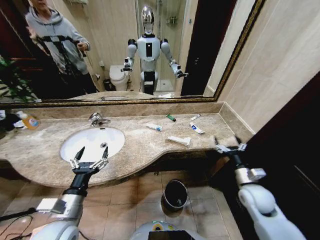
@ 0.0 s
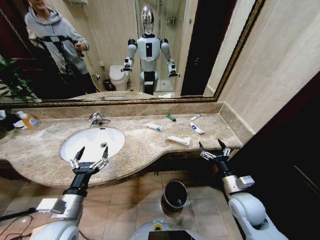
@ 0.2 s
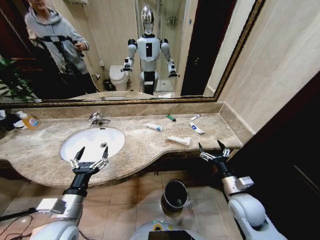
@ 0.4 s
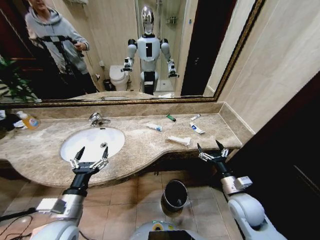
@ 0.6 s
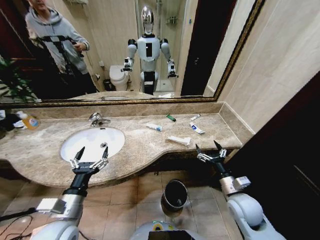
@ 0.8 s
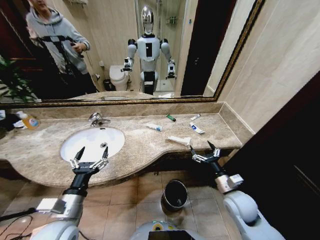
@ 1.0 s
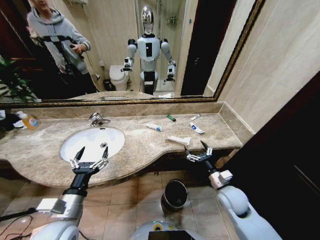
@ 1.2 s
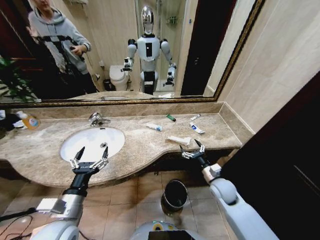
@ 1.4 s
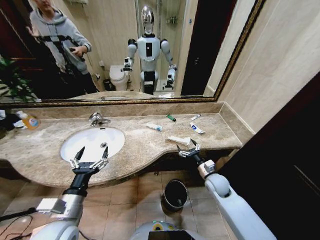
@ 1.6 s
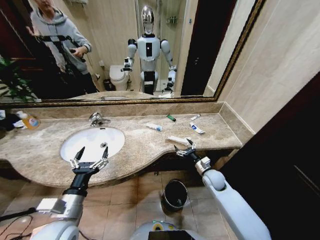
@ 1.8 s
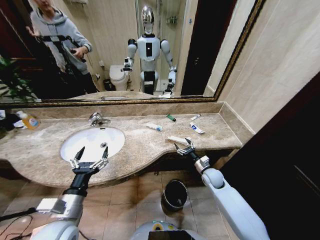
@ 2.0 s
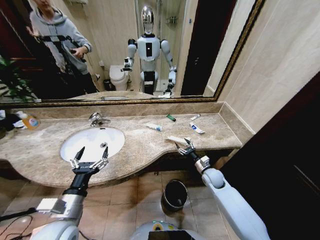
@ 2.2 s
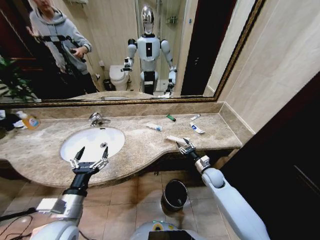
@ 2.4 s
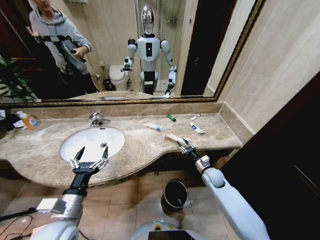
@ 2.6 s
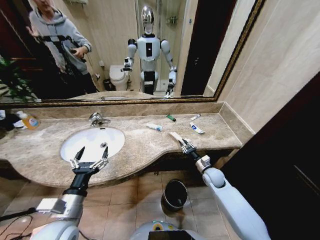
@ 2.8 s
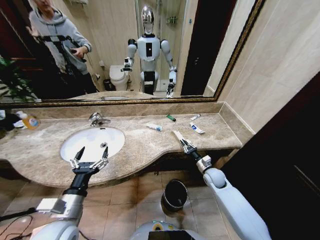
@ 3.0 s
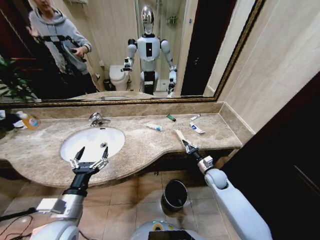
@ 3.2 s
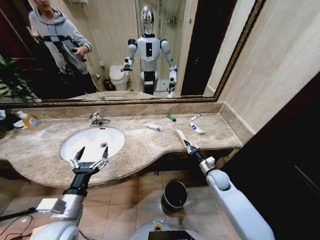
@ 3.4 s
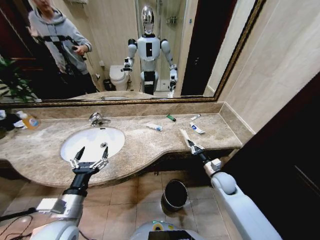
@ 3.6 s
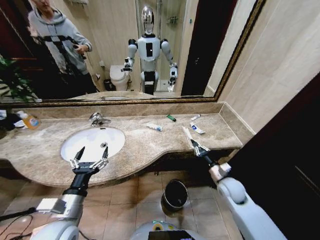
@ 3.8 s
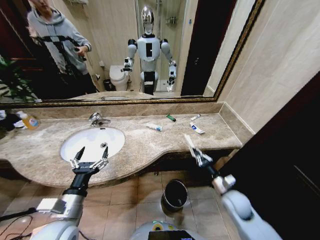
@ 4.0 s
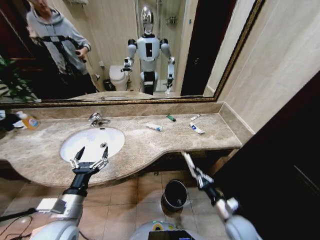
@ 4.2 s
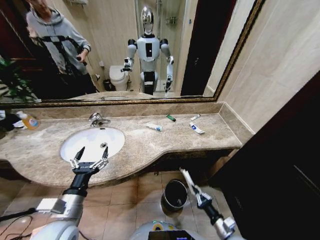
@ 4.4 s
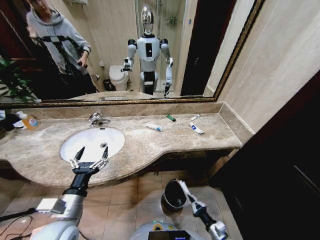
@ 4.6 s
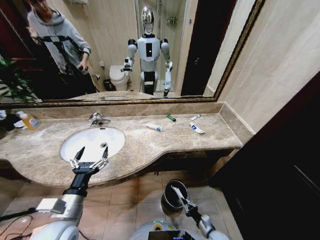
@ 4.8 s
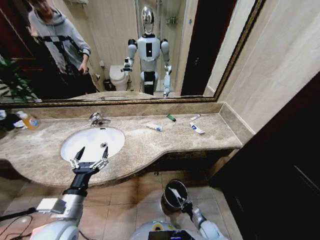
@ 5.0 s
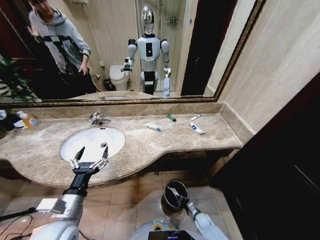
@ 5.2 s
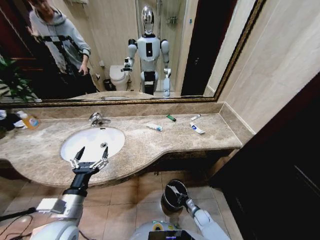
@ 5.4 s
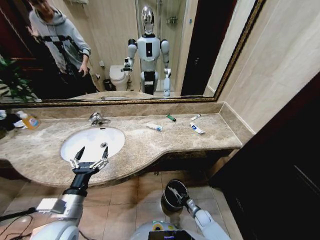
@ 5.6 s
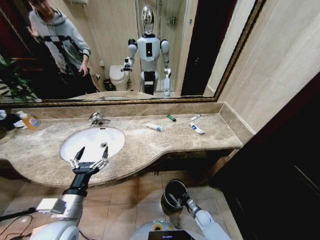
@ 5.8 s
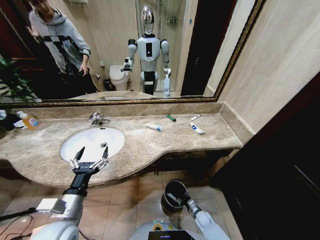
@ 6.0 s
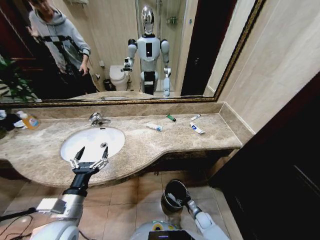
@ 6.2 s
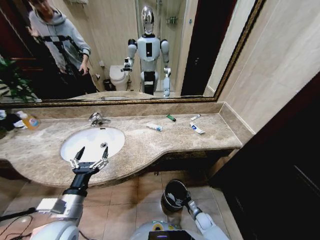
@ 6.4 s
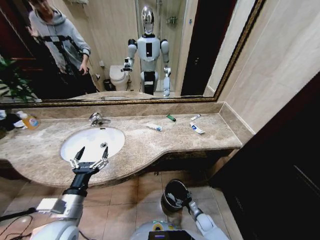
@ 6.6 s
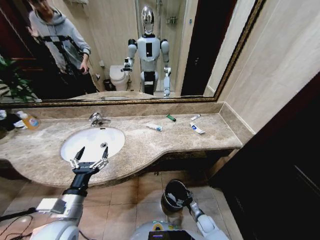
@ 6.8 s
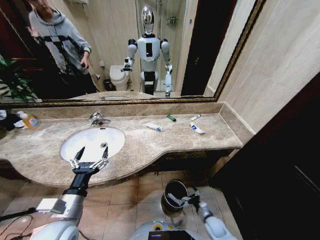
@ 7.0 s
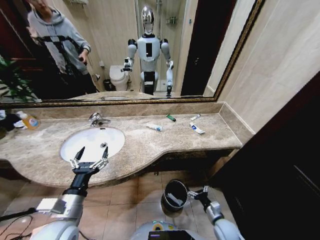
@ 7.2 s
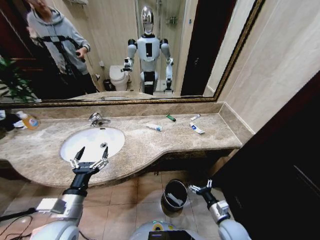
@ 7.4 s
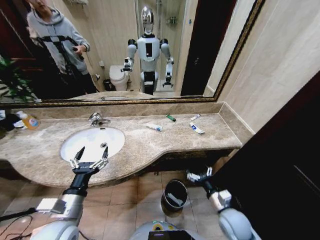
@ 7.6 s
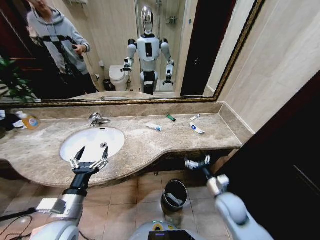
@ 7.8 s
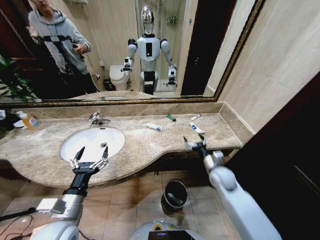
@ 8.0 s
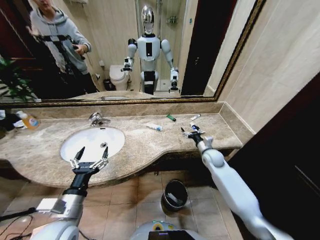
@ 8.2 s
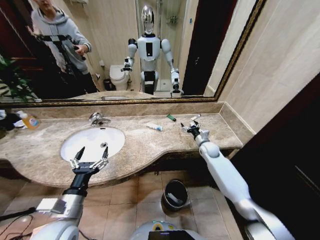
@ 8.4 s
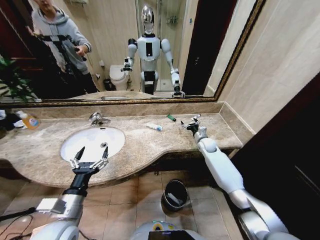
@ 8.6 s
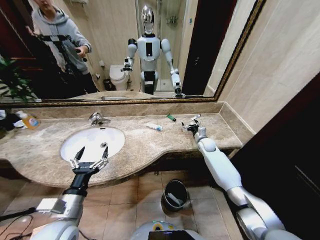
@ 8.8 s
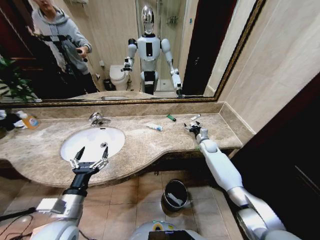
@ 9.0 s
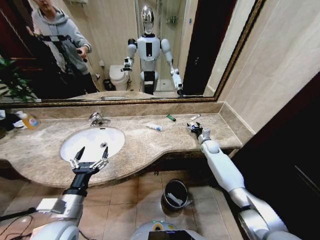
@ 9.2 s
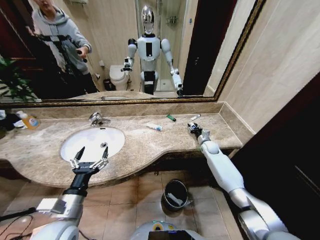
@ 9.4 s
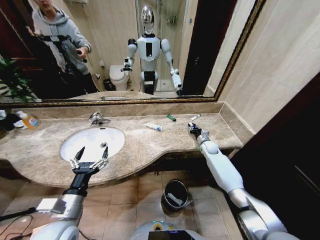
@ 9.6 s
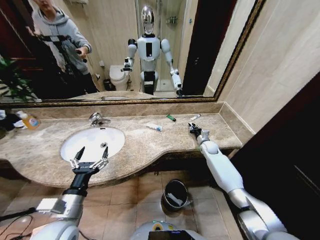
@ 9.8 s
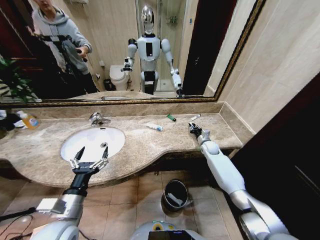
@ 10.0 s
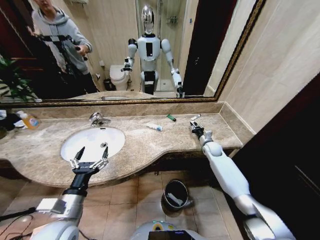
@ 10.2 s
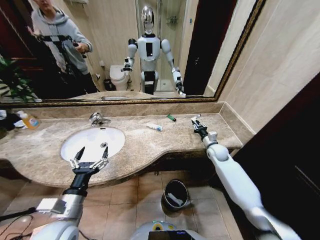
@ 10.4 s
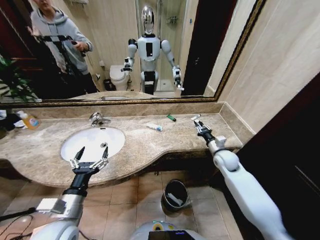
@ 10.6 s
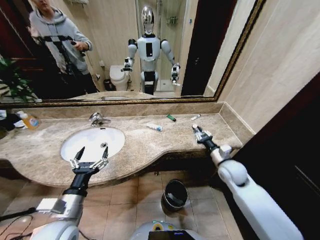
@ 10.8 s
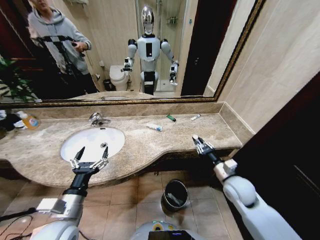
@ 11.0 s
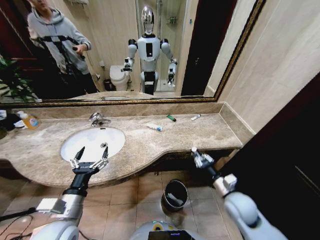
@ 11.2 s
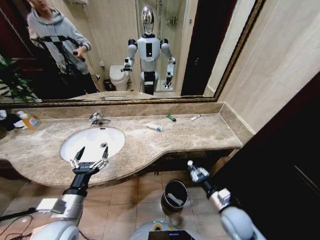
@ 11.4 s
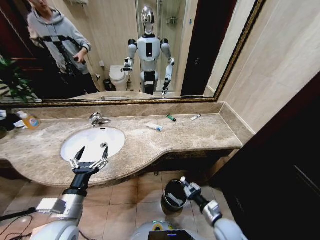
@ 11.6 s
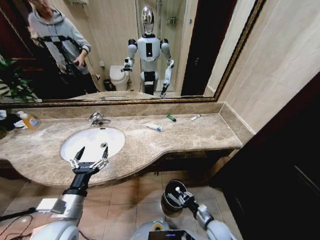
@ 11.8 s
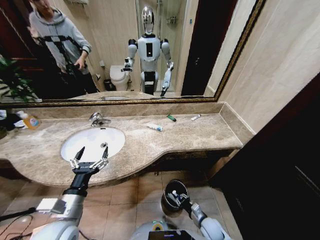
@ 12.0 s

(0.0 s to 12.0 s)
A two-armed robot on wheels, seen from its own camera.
Task of the whole recording: Pick up the trash from the sink and place it in the trash bin.
1.6 s - 3.0 s: The right gripper changes place by approximately 5 cm, and closes up.
3.0 s - 4.4 s: The right gripper shifts roughly 25 cm backward.
4.4 s - 6.0 s: The right gripper moves downward and forward, about 20 cm, and opens its fingers.
6.0 s - 7.6 s: The right gripper travels upward by some 30 cm, and opens.
7.6 s - 9.0 s: The right gripper moves forward, approximately 35 cm.
9.0 s - 10.4 s: The right gripper goes some 10 cm backward, and closes up.
10.4 s - 12.0 s: The right gripper travels backward and downward by approximately 35 cm.

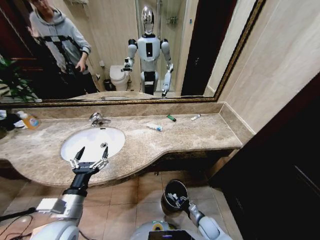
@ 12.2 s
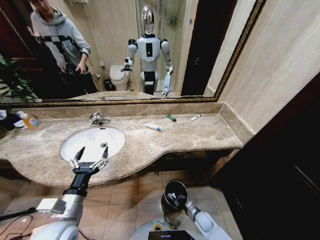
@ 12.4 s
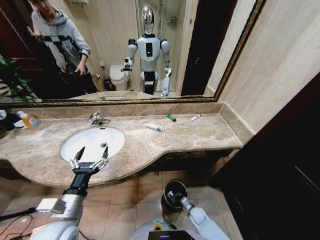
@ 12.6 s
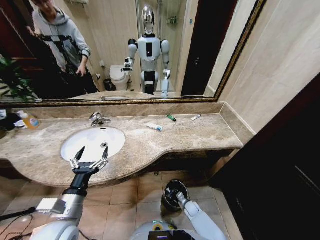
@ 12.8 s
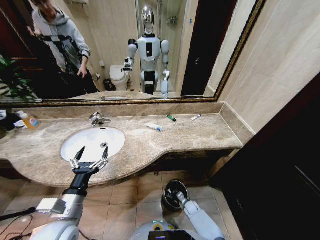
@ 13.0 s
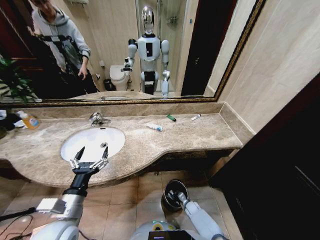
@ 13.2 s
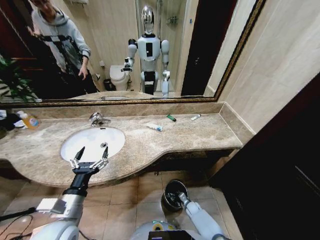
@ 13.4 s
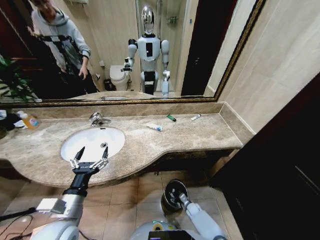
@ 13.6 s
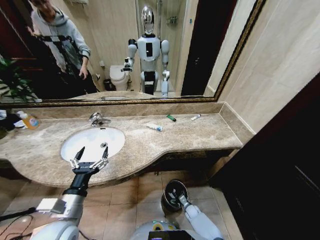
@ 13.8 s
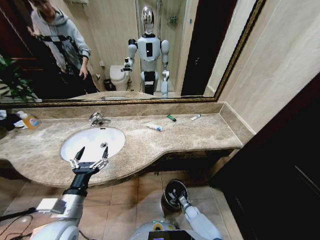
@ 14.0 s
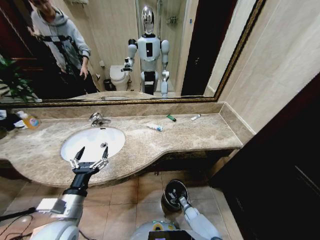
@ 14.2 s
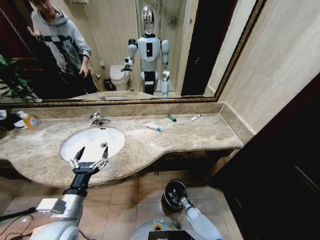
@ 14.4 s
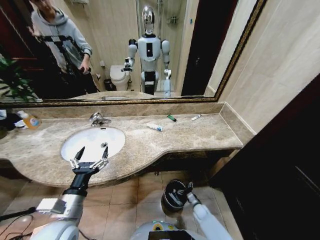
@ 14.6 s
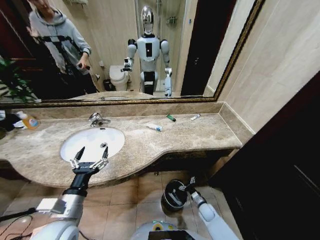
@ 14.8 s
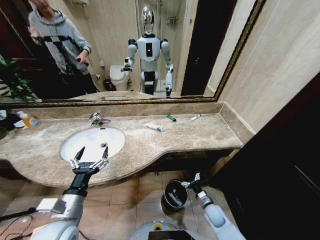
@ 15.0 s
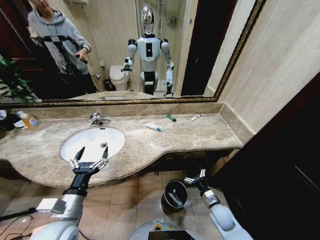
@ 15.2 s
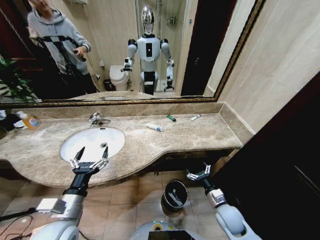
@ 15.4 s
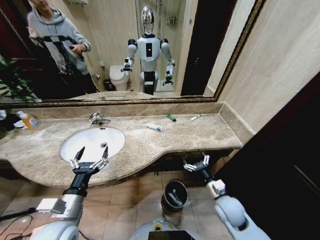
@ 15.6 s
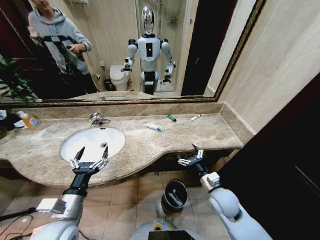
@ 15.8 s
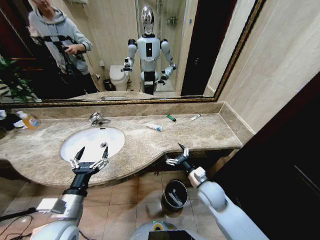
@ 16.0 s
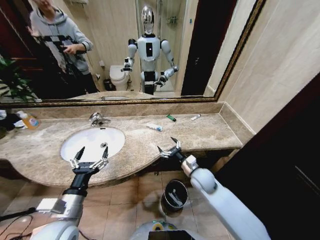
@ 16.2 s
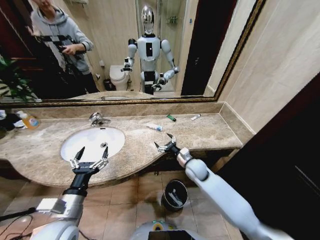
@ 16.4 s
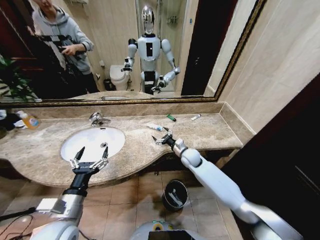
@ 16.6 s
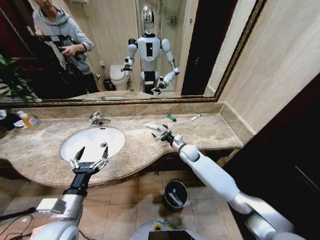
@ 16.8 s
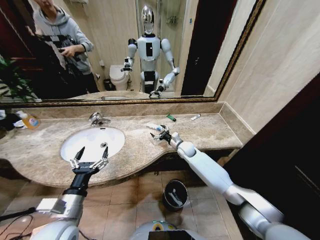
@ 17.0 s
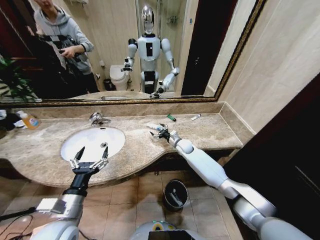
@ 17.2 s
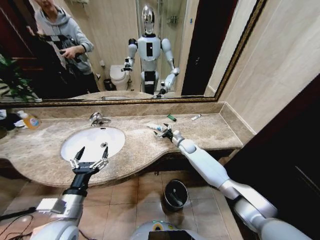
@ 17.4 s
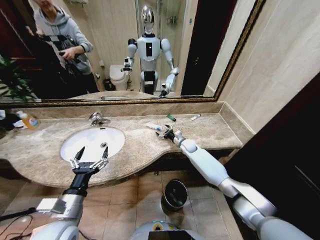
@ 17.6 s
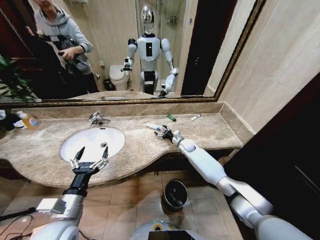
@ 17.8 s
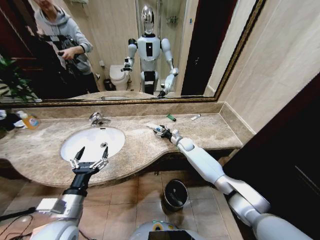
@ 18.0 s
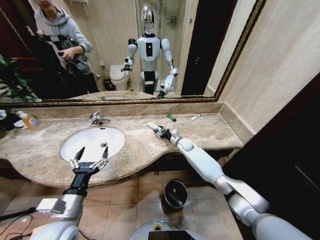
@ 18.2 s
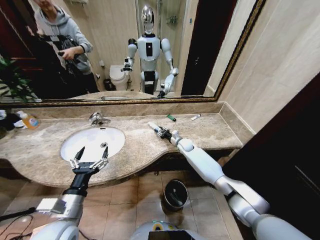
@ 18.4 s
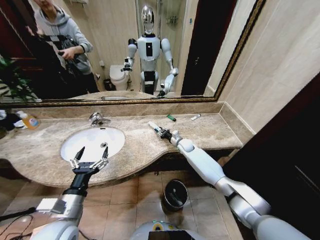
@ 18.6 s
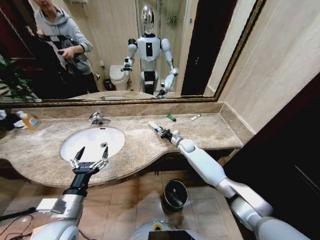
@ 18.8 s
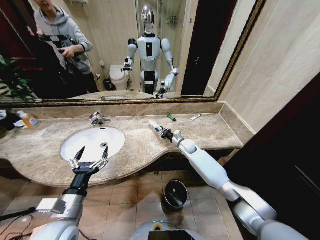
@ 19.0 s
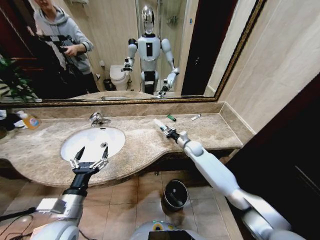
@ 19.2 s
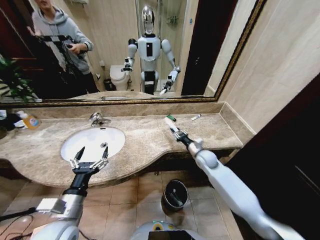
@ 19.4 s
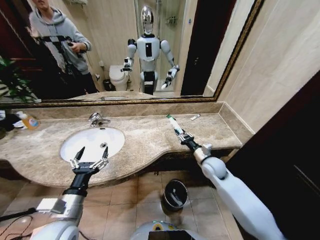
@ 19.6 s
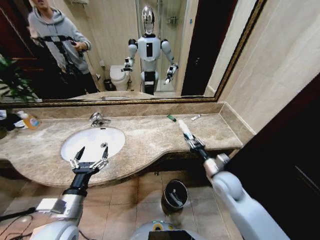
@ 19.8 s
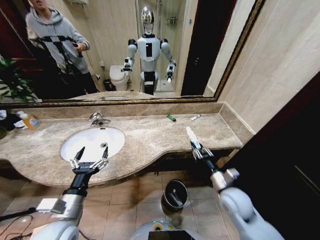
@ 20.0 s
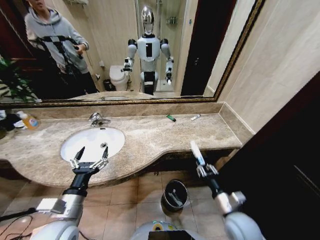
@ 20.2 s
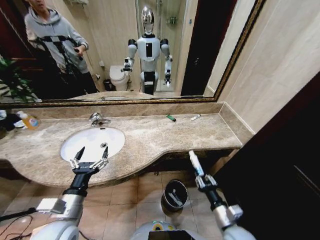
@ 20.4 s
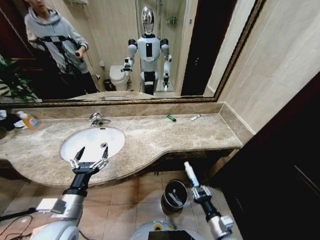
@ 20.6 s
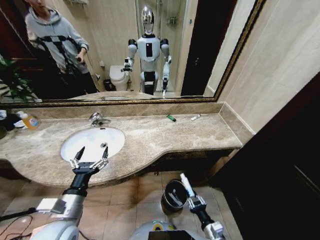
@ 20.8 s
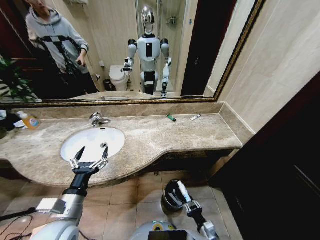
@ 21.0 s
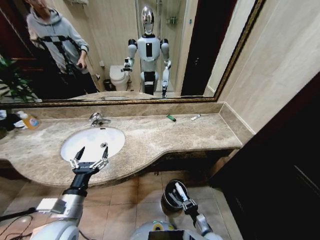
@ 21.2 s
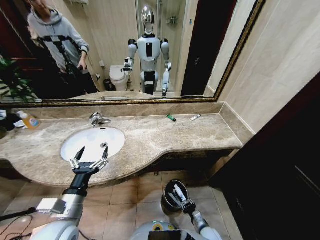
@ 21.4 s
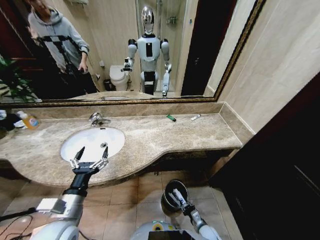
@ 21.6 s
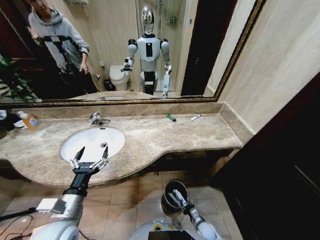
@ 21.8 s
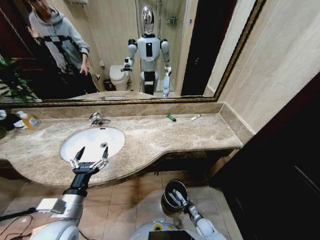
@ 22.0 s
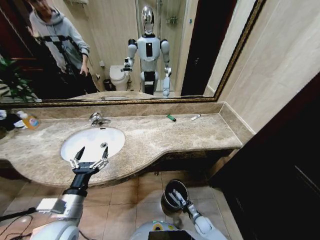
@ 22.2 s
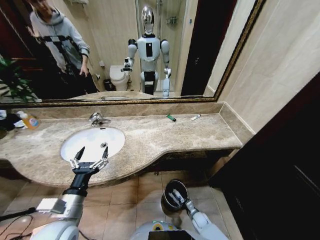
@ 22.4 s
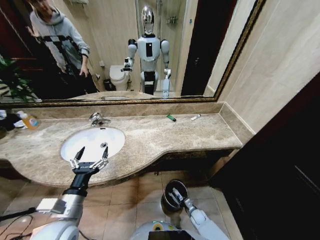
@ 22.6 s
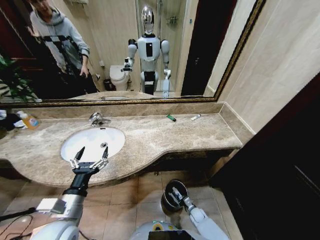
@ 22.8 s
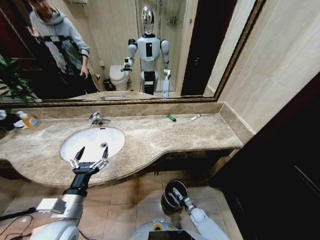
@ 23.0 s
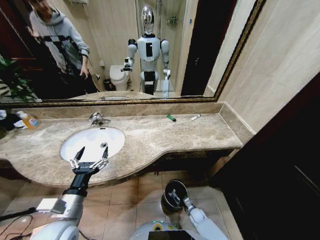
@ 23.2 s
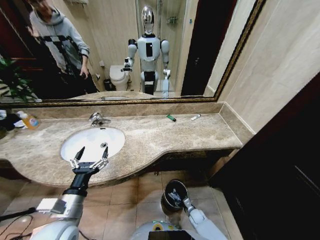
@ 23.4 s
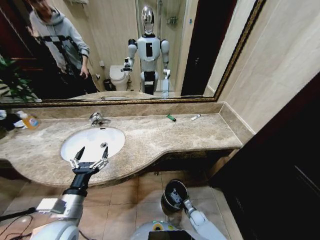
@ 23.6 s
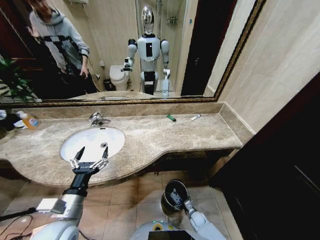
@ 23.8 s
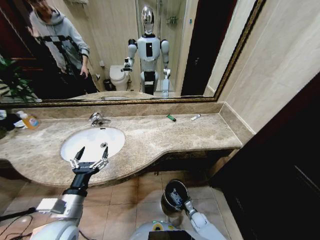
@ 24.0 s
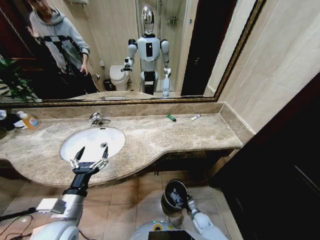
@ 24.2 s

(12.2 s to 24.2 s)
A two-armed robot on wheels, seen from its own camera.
Task of the whole recording: Pick up the trash from the sink and place it in the trash bin.
12.2 s - 13.8 s: The right gripper goes approximately 15 cm downward and forward, and opens.
13.8 s - 15.2 s: The right gripper moves upward, roughly 20 cm.
15.2 s - 16.6 s: The right gripper moves forward, upward and to the left, some 30 cm.
16.6 s - 18.2 s: The right gripper shifts roughly 10 cm forward, and closes its fingers.
18.2 s - 19.8 s: The right gripper heads backward, covering about 25 cm.
19.8 s - 21.2 s: The right gripper is displaced downward and backward by some 30 cm.
21.2 s - 22.6 s: The right gripper moves downward and forward, roughly 15 cm.
22.6 s - 24.2 s: The right gripper opens up.
